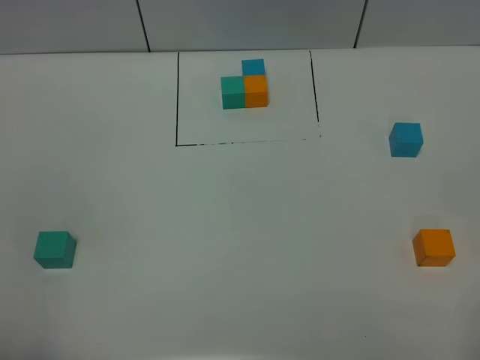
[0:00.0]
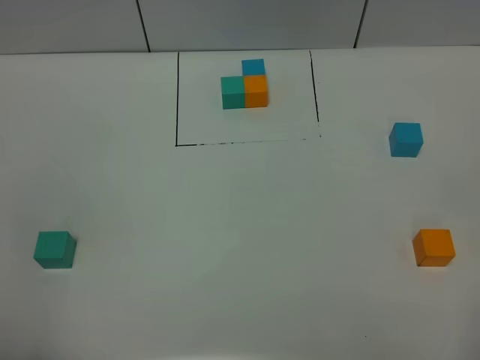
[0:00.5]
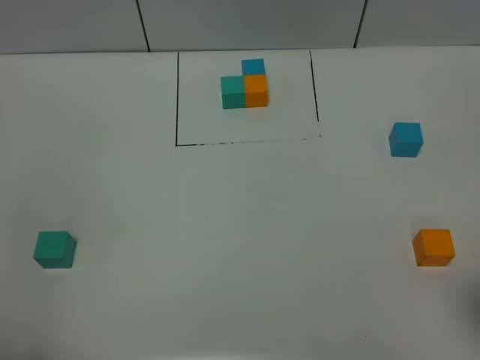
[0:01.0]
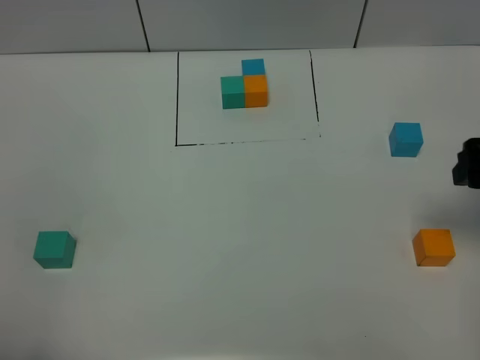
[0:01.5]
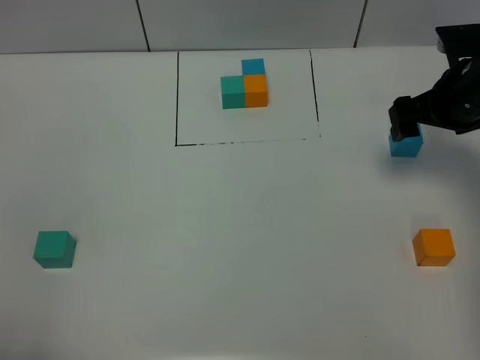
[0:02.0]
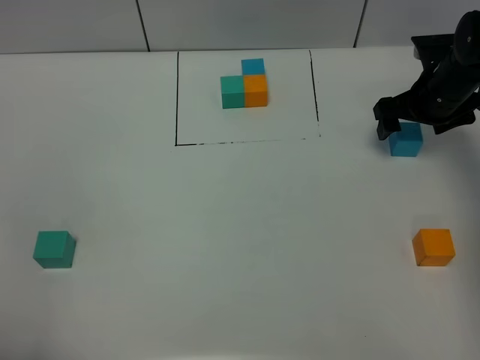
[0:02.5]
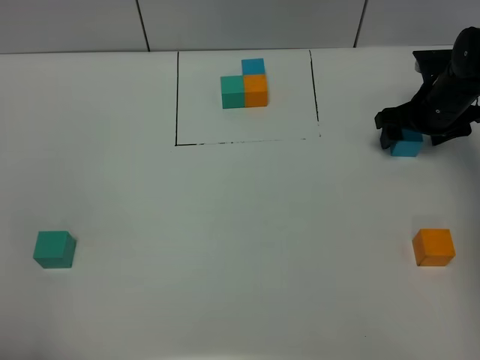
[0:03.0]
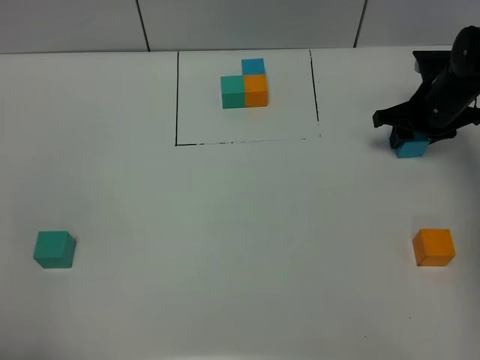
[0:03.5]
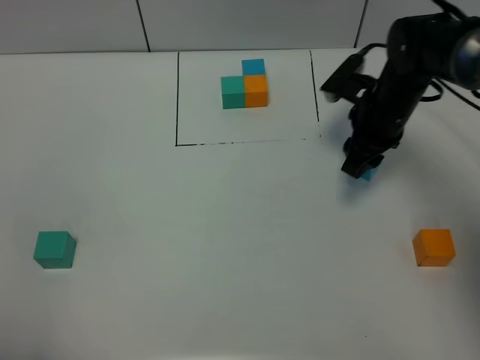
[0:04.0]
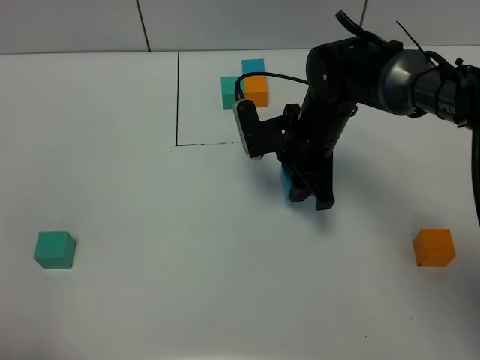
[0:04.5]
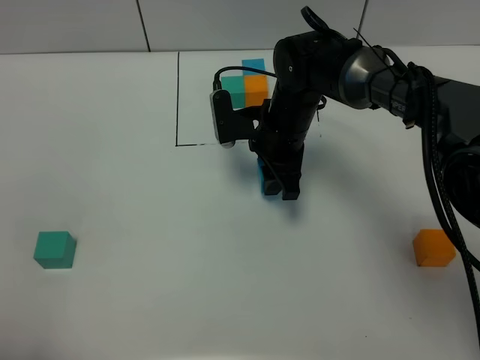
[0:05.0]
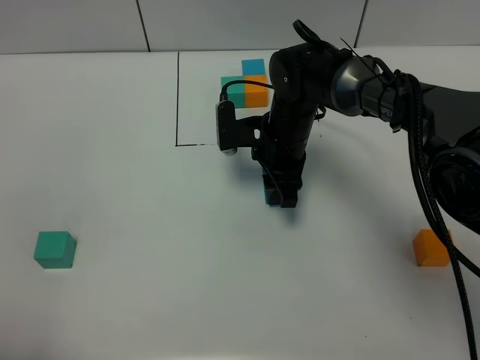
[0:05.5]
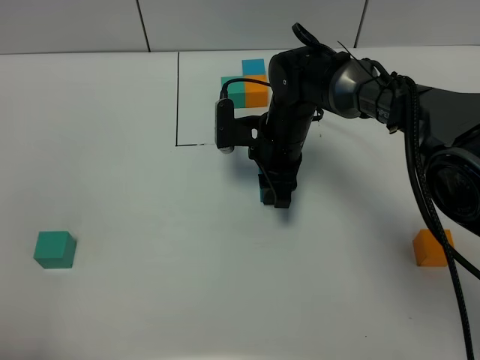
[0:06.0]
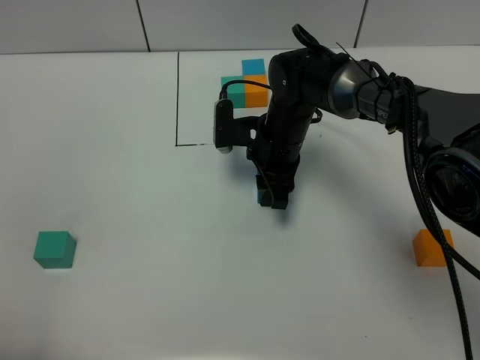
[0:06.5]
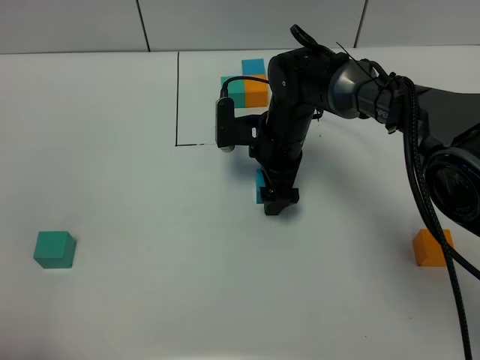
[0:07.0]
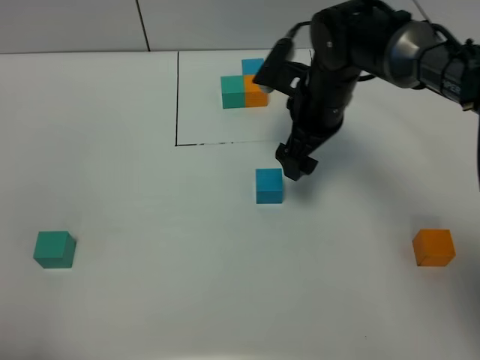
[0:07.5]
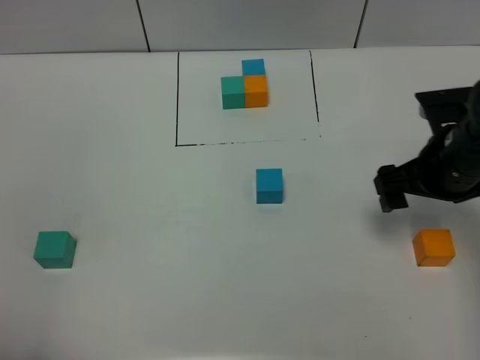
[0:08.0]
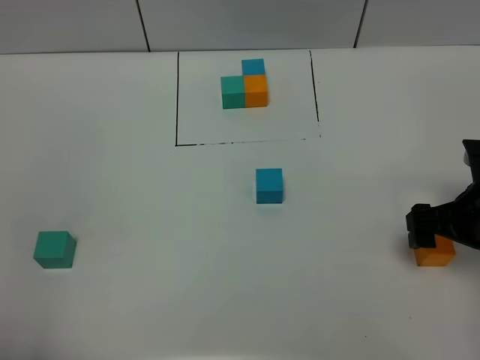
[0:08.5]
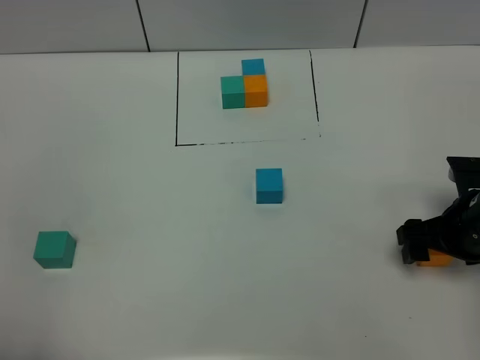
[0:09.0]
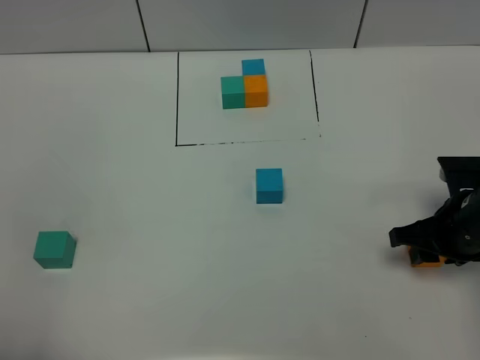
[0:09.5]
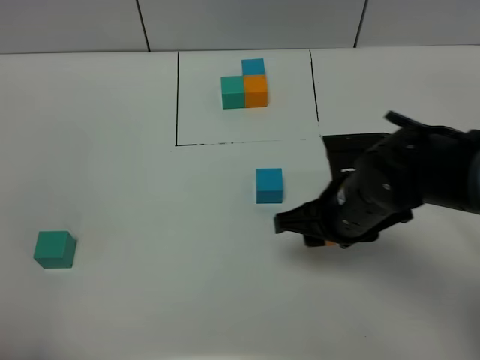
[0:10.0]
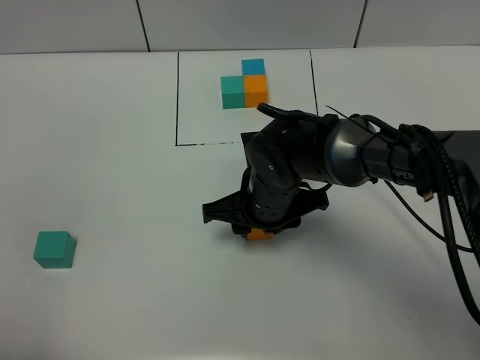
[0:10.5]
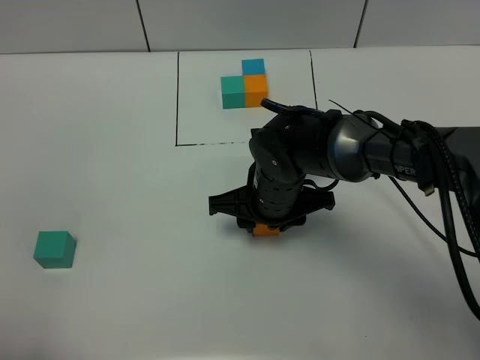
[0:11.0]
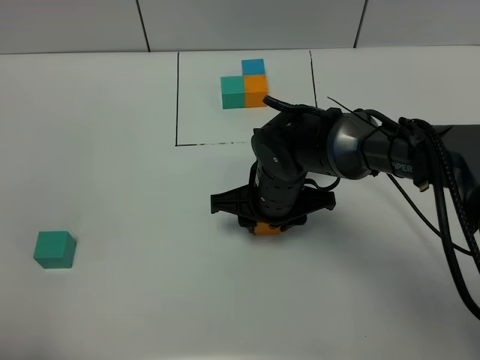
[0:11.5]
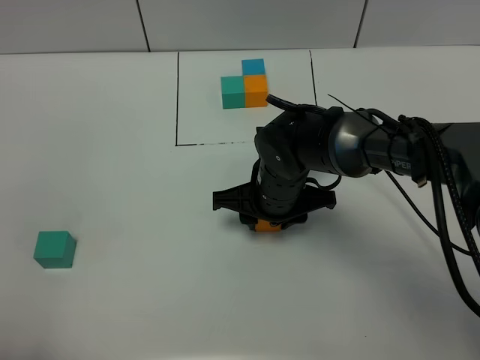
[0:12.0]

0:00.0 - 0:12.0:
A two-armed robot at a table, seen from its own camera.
Task of the whole recording: According to the building block template in front, assemble the scattered blocks together.
Step, 0:00.0 - 0:06.5: Put the blue build block in the center of the table.
0:00.0 - 0:02.0: The right gripper is displaced forward by approximately 40 cm.
0:02.0 - 0:04.0: The right gripper heads to the left and downward, covering roughly 10 cm, and closes up.
0:04.0 - 0:06.0: The right gripper travels to the left by approximately 10 cm.
0:06.0 - 0:08.0: The right gripper goes about 25 cm to the right, backward and upward, and opens its fingers.
0:08.0 - 0:10.0: The right gripper is displaced to the left by some 10 cm, and closes up.
0:10.0 - 0:12.0: The right gripper shifts about 10 cm to the left and forward.

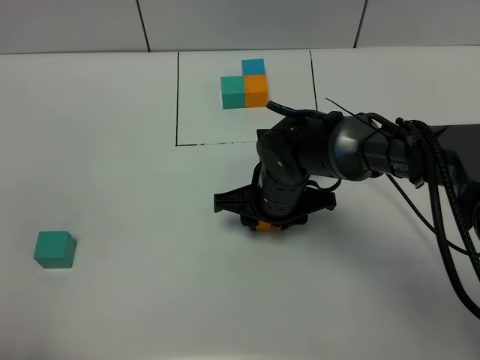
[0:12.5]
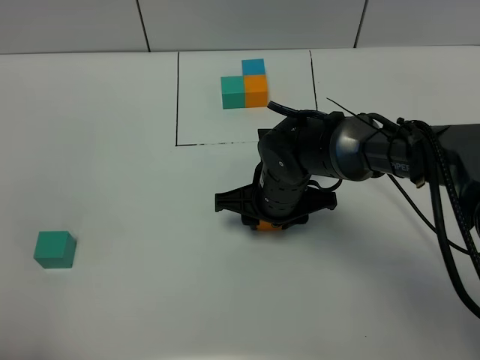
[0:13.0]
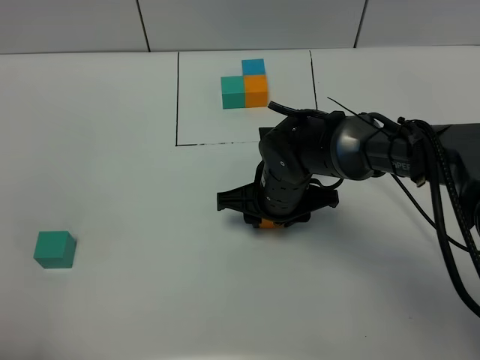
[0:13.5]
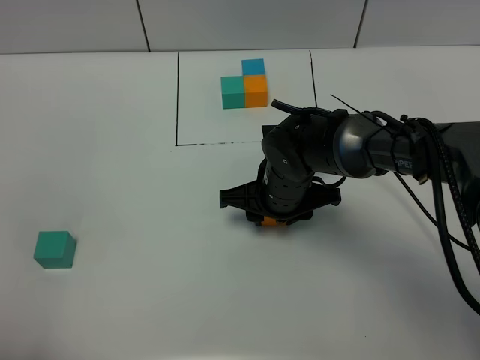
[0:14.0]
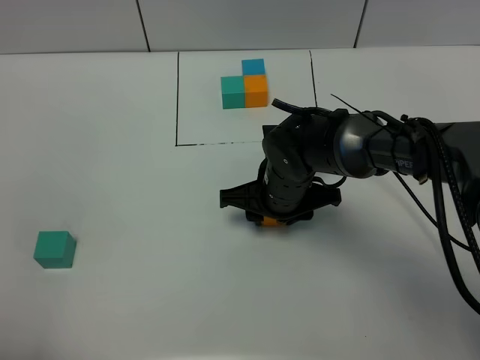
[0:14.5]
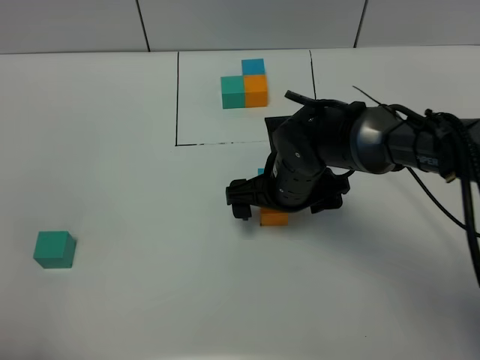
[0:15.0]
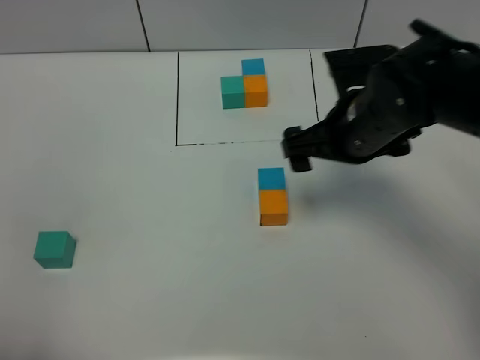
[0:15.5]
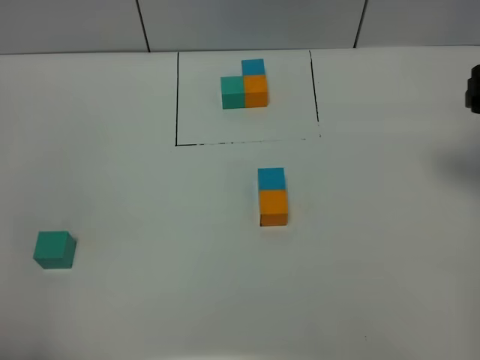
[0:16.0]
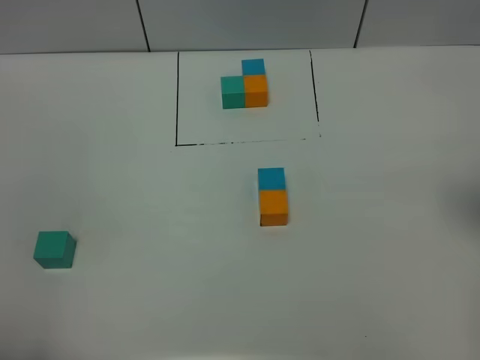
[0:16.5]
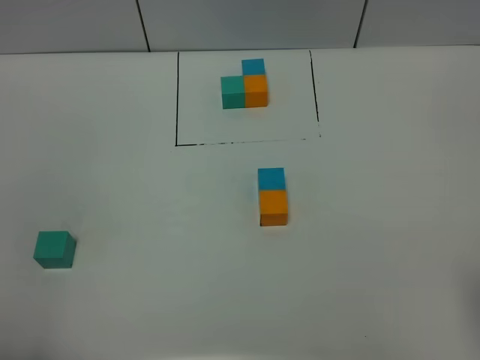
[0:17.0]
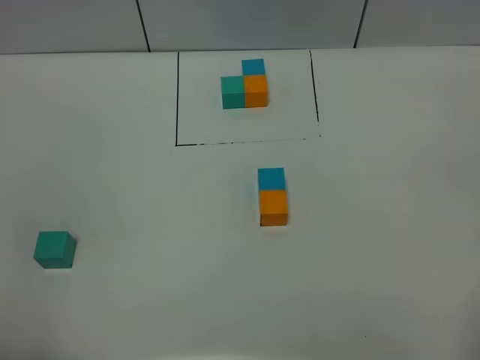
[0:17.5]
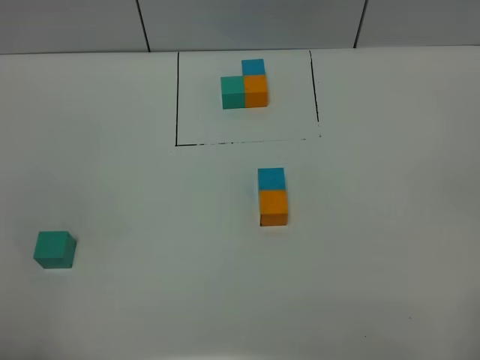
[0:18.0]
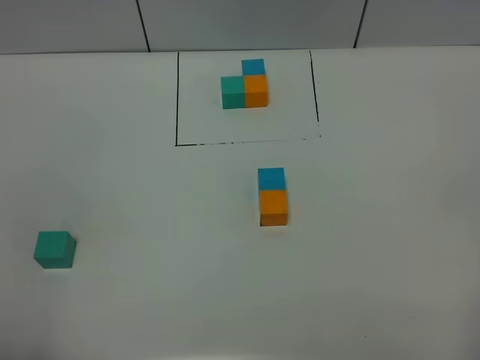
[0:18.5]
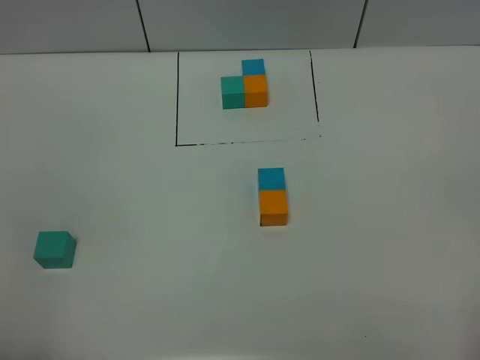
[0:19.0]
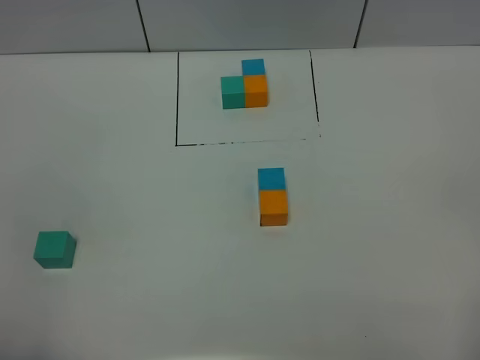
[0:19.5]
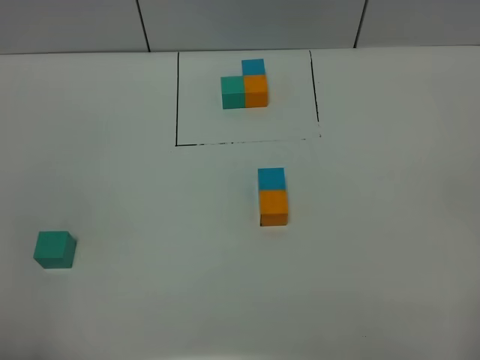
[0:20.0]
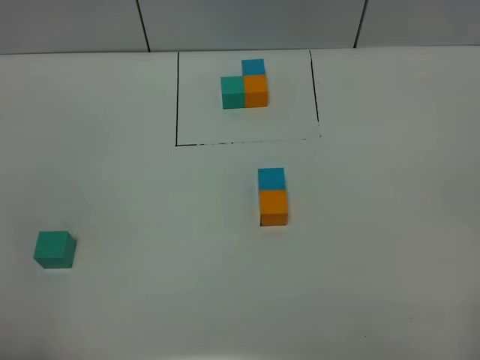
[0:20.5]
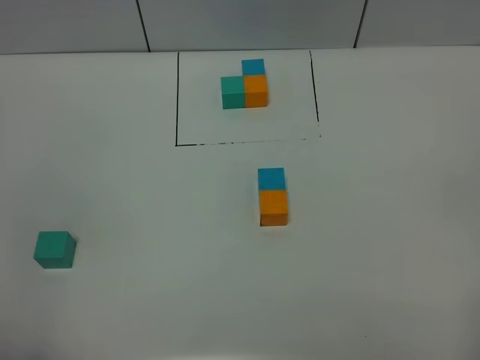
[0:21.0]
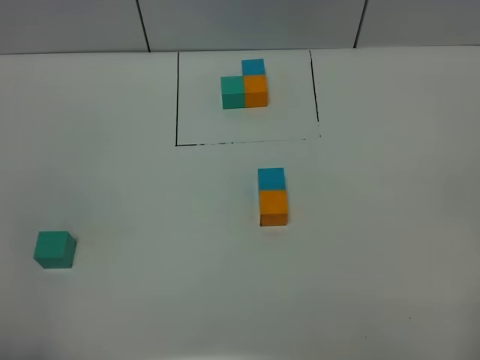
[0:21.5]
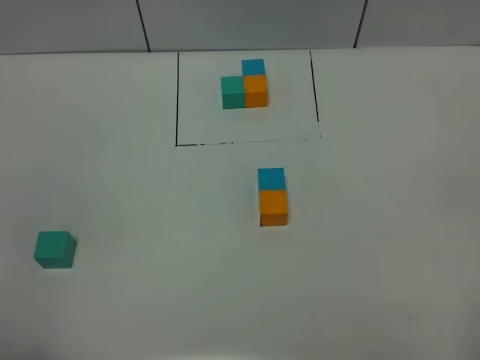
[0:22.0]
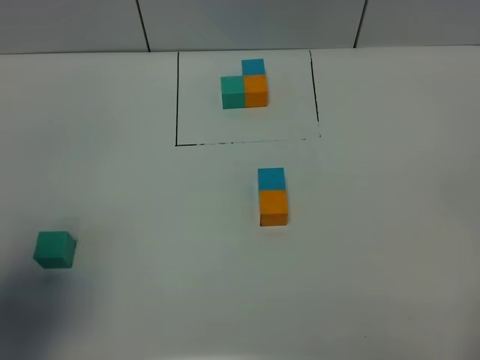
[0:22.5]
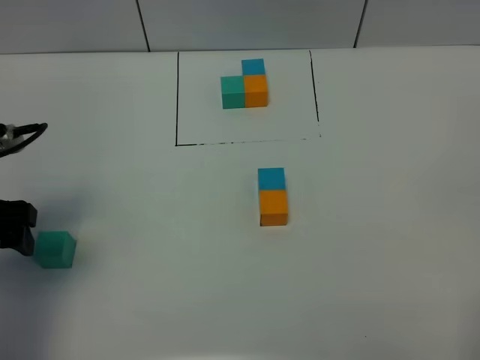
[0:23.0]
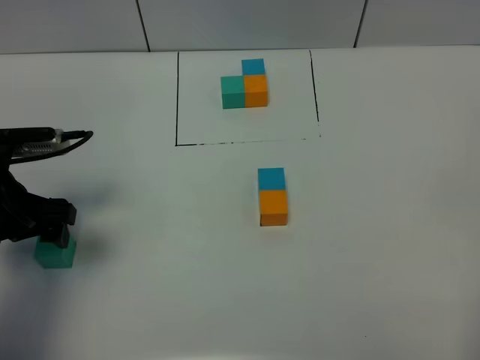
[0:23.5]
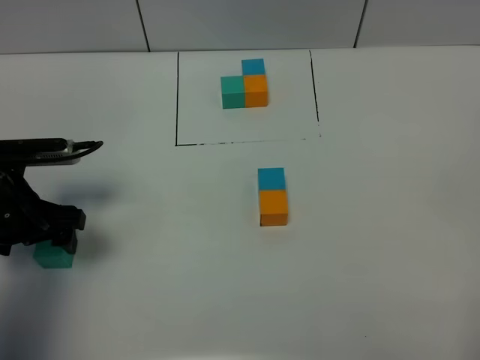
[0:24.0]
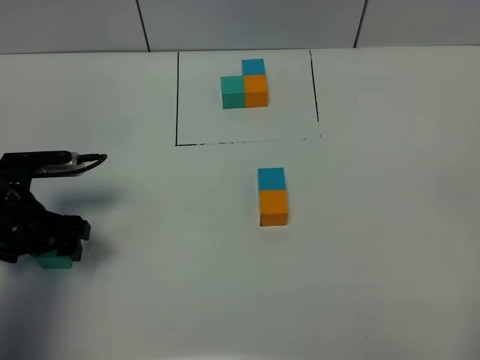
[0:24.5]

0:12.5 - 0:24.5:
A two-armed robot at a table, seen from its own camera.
Task of the whole recording: According to the building block template in front, assemble the scattered blocks together.
Step, 0:12.5 - 0:14.5: Put the orange build block on the behind of the blue build block.
0:12.5 - 0:14.5: Both grippers stay put.
0:14.5 - 0:16.5: The right gripper shifts some 35 cm to the right and upward, and opens.
0:18.5 - 0:20.5: Both grippers stay put.
0:20.5 - 0:22.5: The left gripper travels forward by some 15 cm.
0:22.5 - 0:24.5: The left gripper travels downward and forward by some 20 cm.

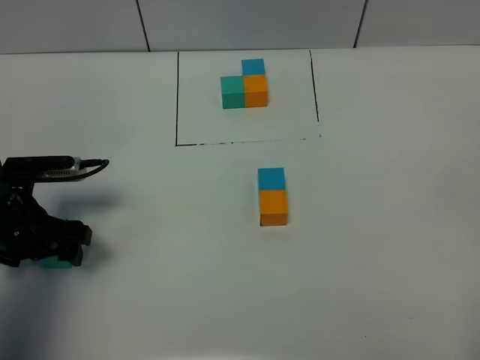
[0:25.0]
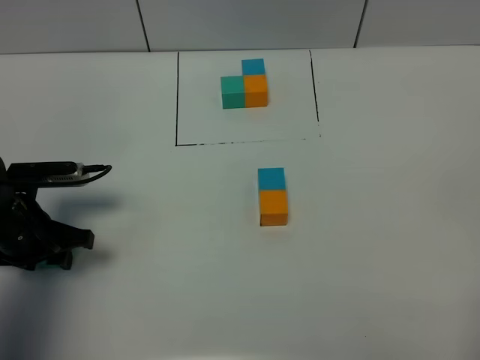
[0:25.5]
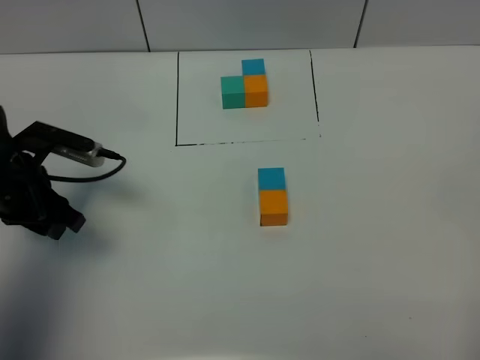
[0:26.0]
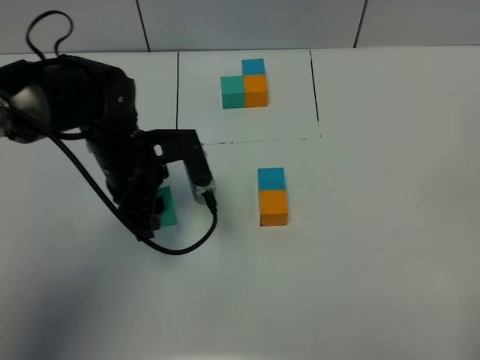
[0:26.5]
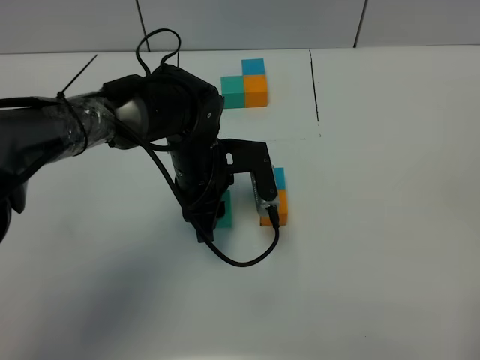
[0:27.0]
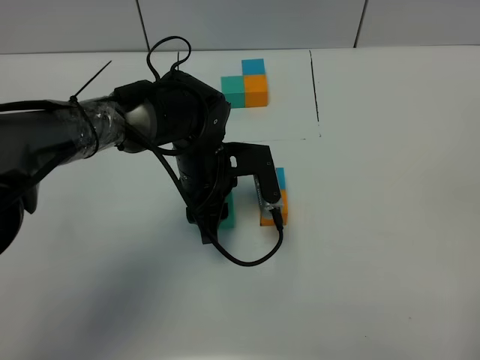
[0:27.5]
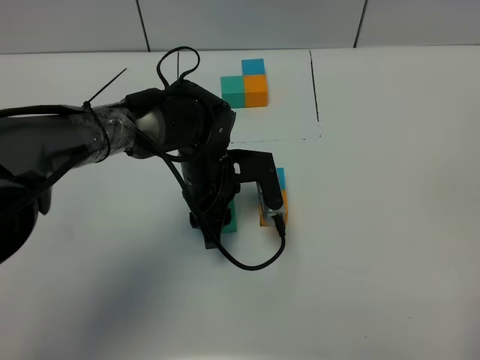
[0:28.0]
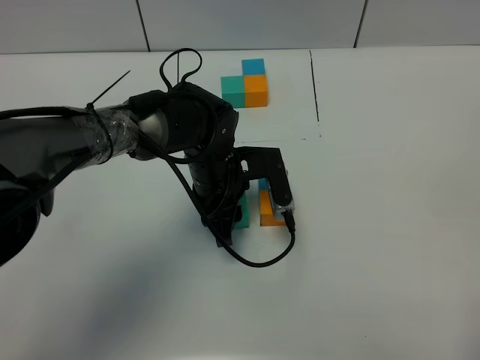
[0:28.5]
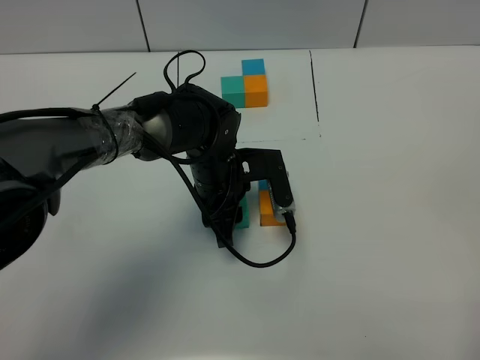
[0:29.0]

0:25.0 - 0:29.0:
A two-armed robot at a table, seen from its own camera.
Task of the whole recording: According to the building block template in front, assemble the scattered blocks together.
0:25.0 - 0:27.0: The left gripper shifts some 20 cm to the right, and closes up.
0:27.0 - 0:29.0: There are only small adjustments of the grippers.
